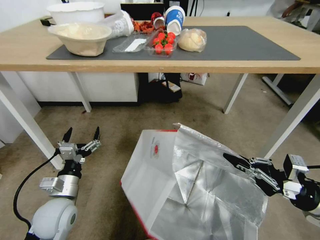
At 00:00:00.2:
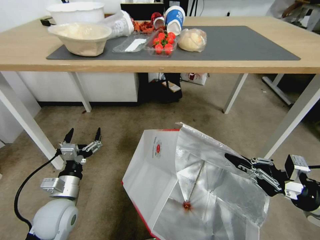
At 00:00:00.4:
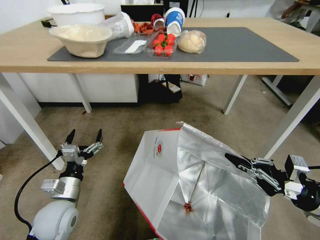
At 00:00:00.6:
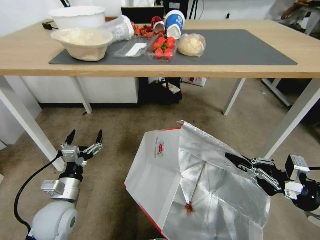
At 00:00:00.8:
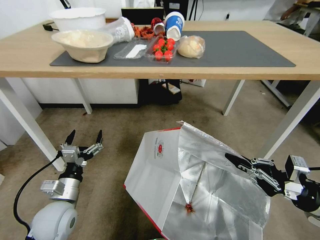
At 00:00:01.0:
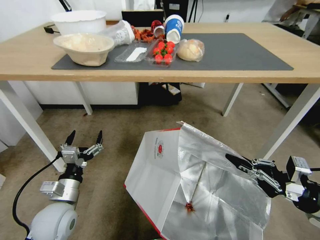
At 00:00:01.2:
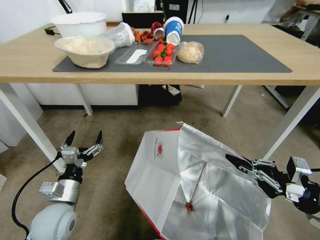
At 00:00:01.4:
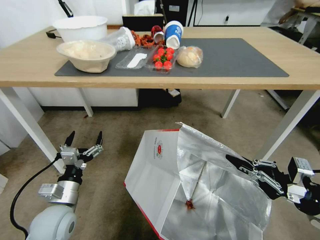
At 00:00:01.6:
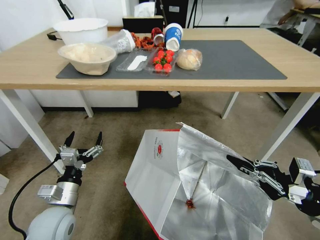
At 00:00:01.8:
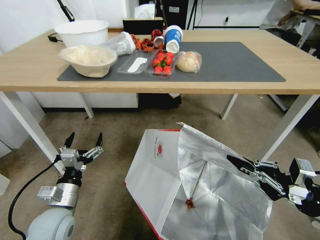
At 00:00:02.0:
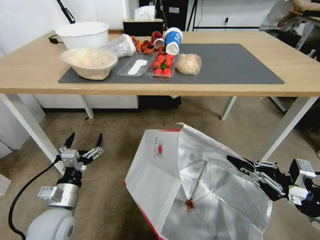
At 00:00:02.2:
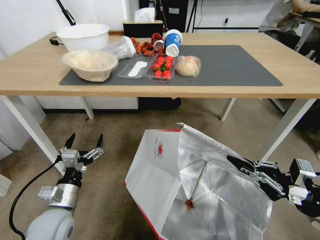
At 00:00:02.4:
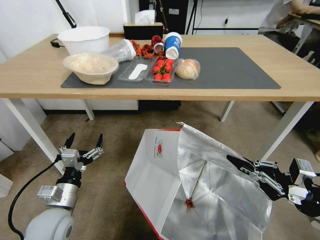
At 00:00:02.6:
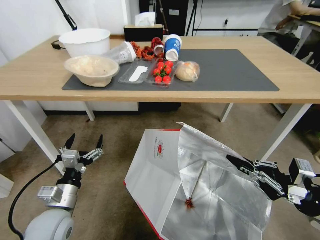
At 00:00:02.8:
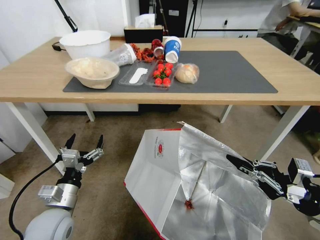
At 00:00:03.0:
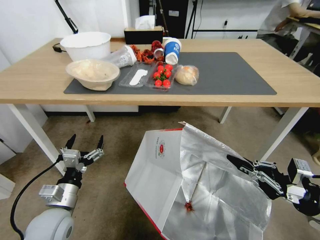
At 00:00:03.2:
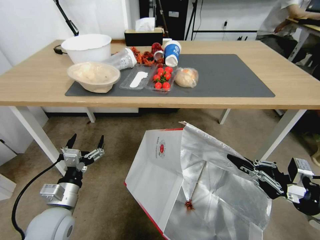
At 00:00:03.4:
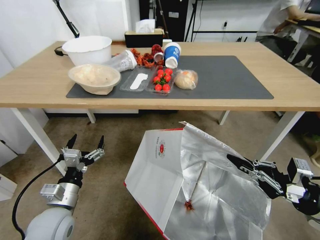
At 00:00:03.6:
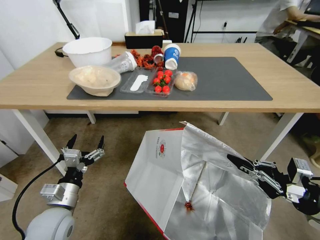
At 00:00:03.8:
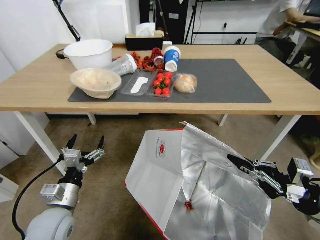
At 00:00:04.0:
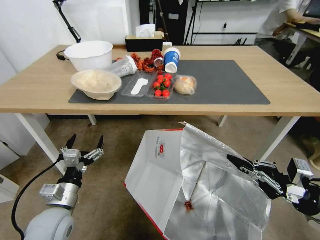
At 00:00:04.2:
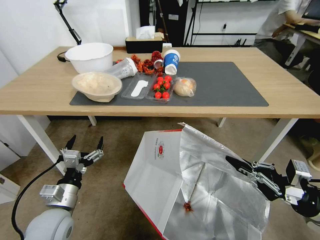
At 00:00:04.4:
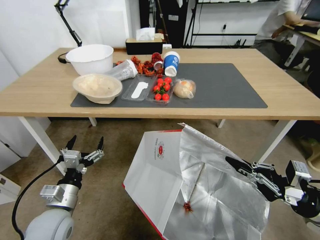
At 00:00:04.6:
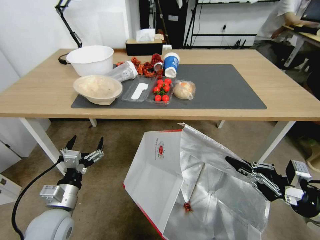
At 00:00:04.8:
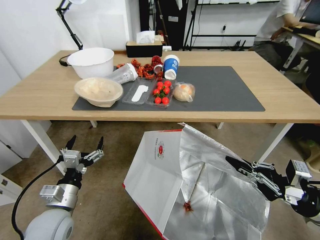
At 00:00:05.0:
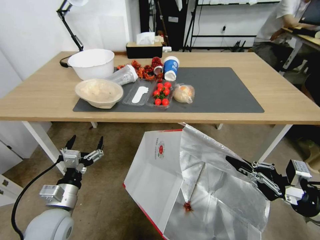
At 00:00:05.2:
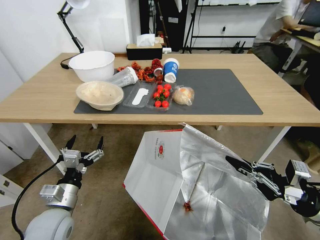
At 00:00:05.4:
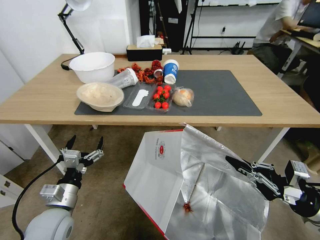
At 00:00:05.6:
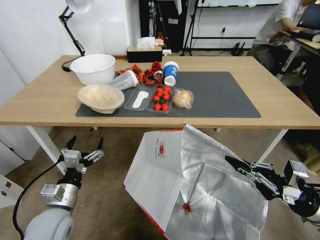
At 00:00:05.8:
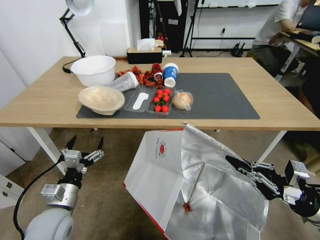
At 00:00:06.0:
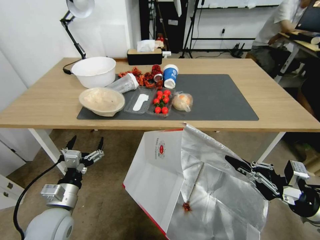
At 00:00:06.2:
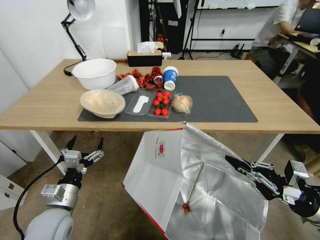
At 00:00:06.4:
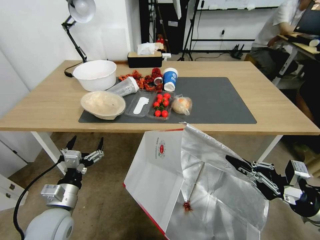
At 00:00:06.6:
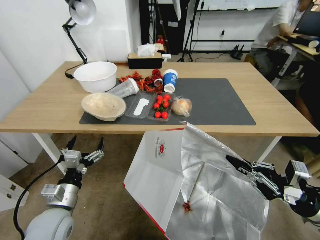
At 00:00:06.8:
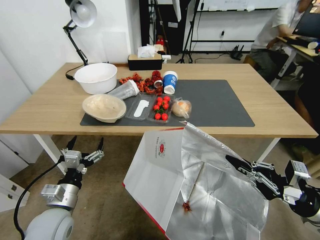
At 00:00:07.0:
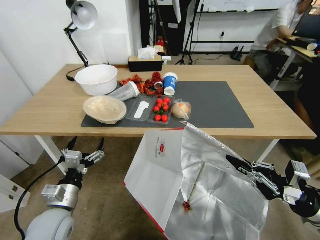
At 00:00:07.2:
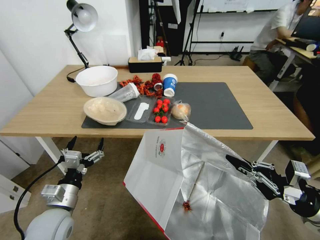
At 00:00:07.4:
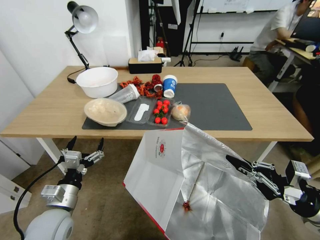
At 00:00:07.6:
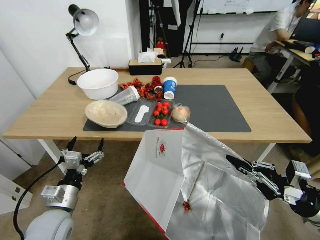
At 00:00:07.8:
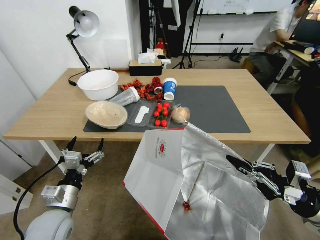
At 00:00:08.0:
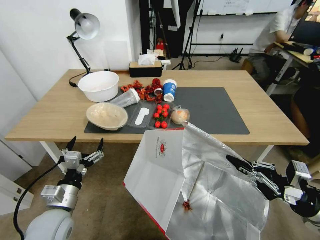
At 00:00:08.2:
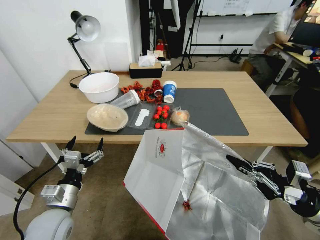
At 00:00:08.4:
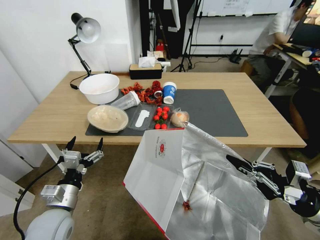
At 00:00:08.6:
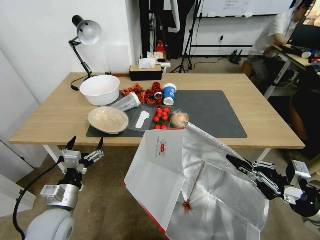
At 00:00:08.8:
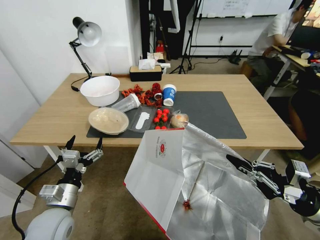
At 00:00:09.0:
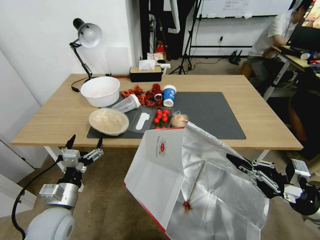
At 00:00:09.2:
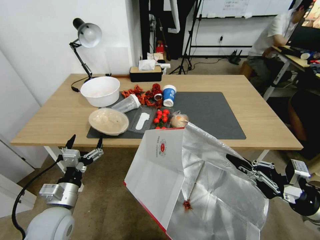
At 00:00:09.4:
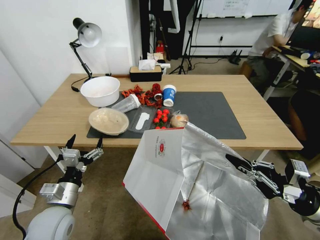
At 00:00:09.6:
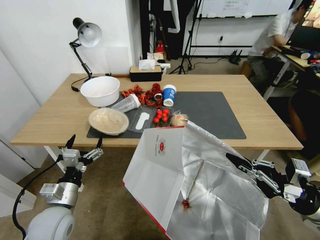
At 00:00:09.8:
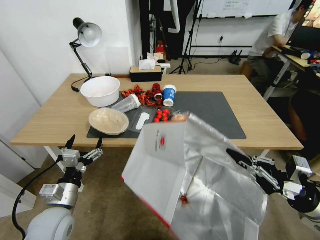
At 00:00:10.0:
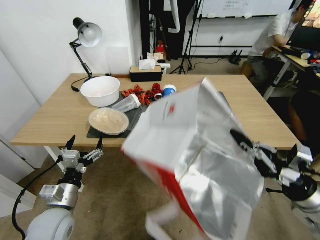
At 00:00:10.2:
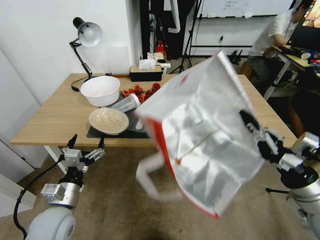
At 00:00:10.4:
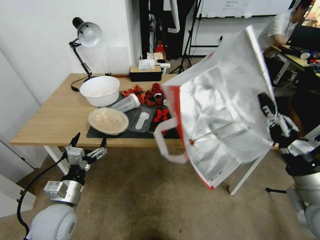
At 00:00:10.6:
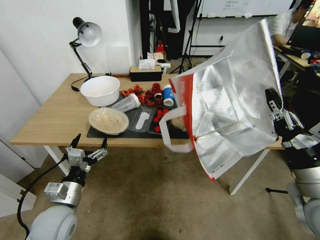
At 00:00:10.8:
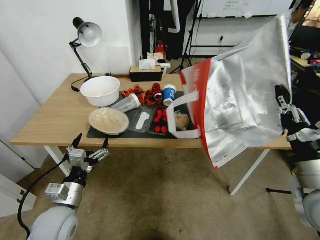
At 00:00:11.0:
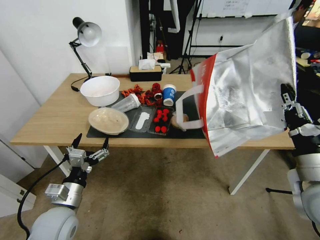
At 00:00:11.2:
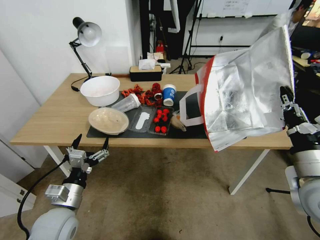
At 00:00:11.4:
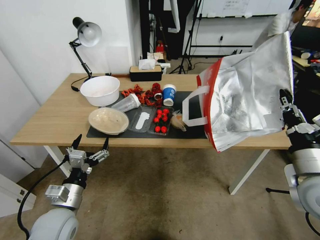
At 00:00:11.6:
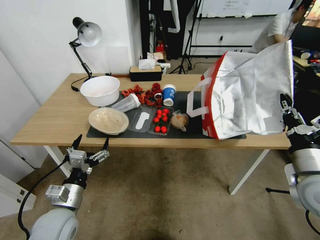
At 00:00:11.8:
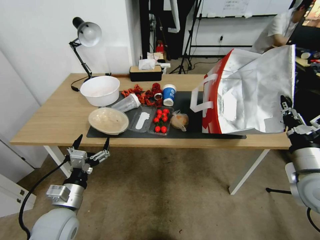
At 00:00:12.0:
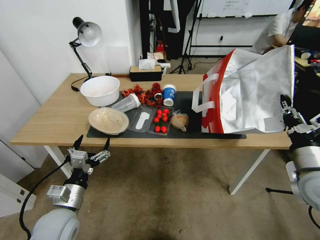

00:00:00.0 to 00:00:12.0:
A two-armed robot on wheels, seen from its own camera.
Task of the whole recording: Pick up the food delivery bag from the floor and place it on the table.
00:00:09.0 to 00:00:10.4: The right gripper shifts approximately 10 cm to the left.
00:00:10.4 to 00:00:12.0: The right gripper travels forward by roughly 5 cm.

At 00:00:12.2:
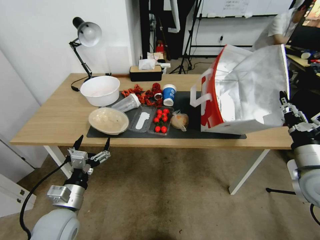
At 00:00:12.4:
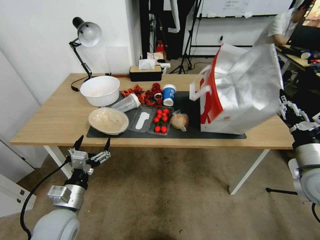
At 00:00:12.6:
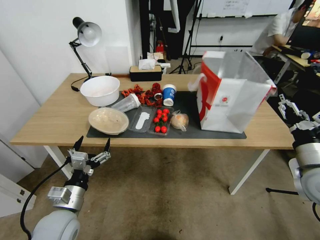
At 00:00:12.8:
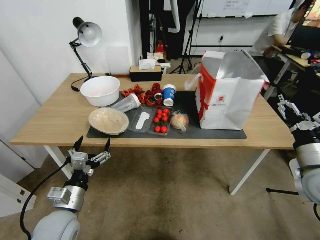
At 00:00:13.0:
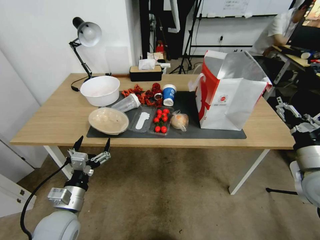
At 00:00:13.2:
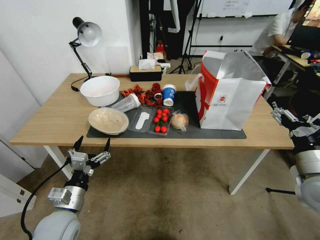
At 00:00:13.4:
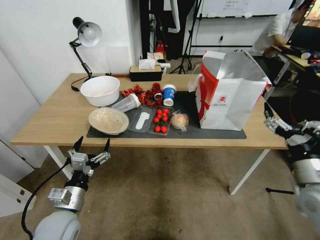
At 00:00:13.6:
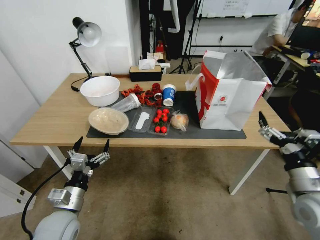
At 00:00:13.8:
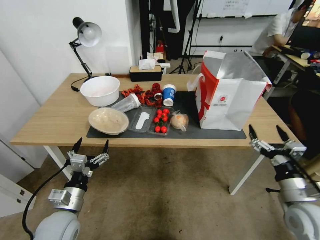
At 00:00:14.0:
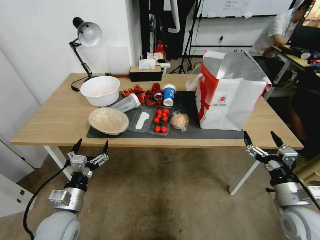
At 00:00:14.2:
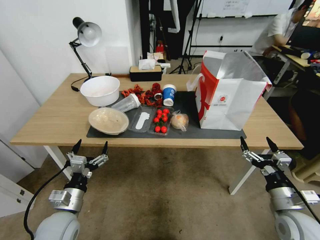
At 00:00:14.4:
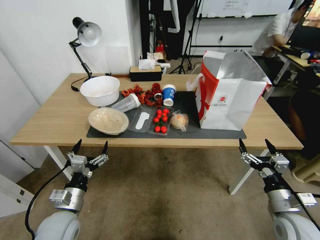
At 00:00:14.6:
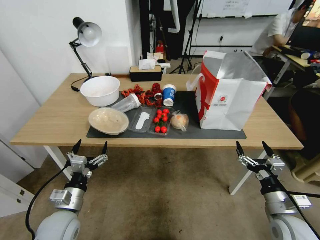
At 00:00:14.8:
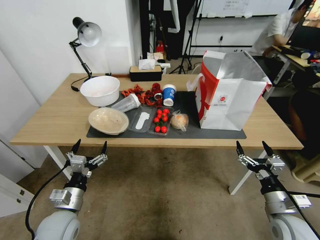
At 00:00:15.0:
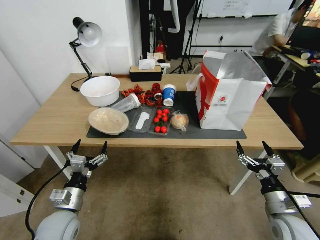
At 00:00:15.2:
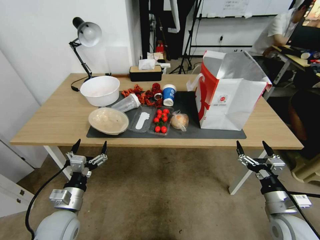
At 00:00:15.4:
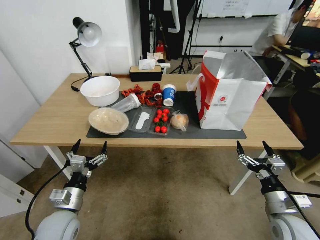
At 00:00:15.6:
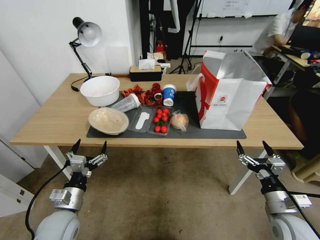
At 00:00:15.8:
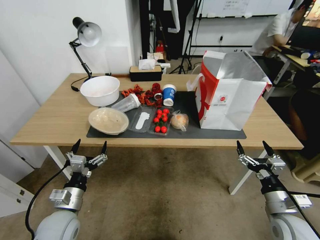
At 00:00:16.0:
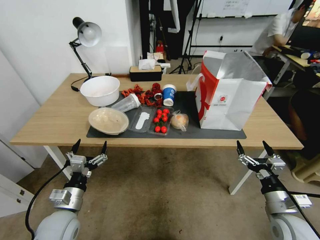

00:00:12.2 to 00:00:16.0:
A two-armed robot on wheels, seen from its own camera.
Task of the whole recording: Pick up the food delivery bag from the floor and place it on the table.
00:00:12.2 to 00:00:13.4: The right gripper opens up.
00:00:13.4 to 00:00:14.8: The right gripper is displaced downward by about 10 cm.
00:00:14.8 to 00:00:16.0: Both grippers stay about where they are.
